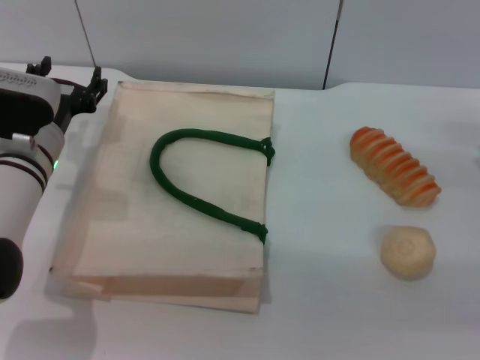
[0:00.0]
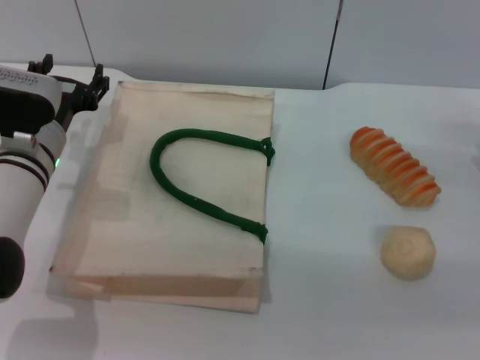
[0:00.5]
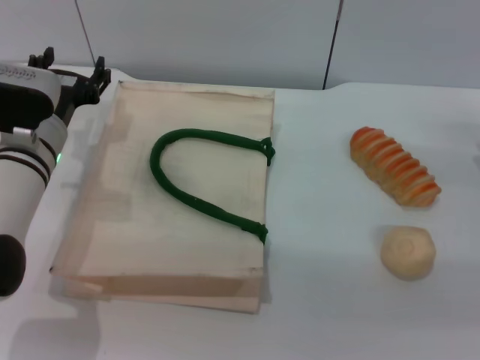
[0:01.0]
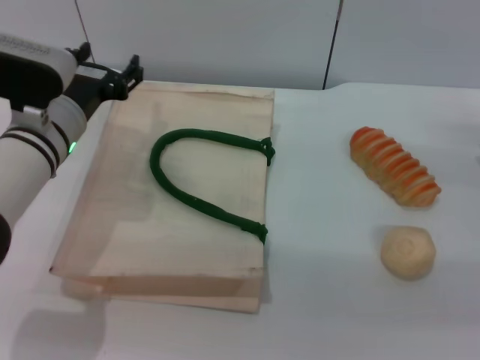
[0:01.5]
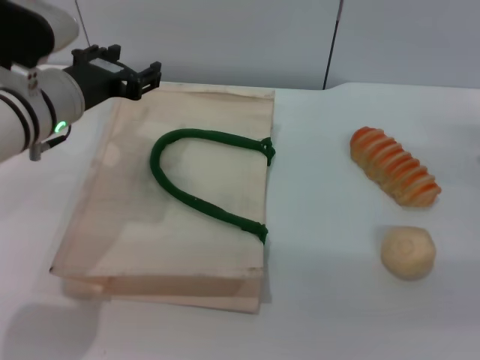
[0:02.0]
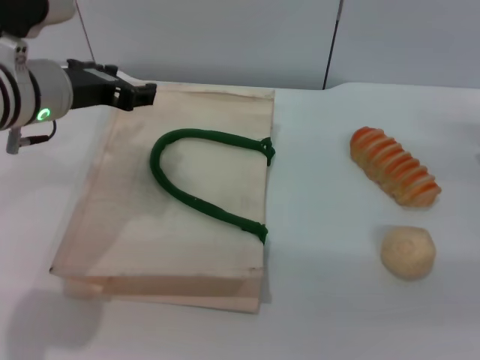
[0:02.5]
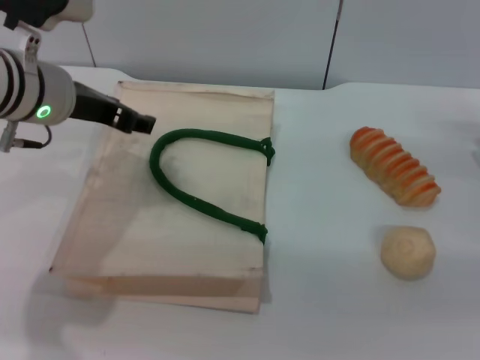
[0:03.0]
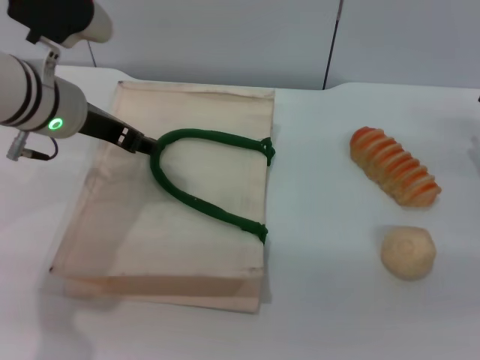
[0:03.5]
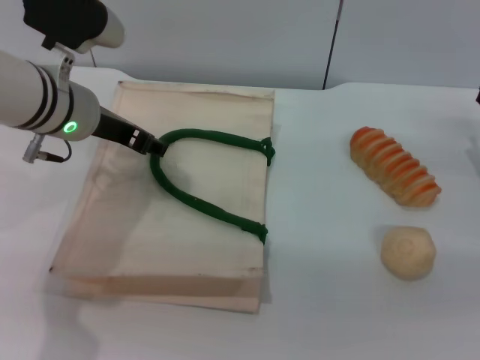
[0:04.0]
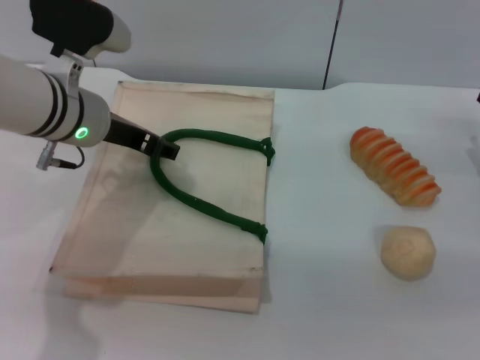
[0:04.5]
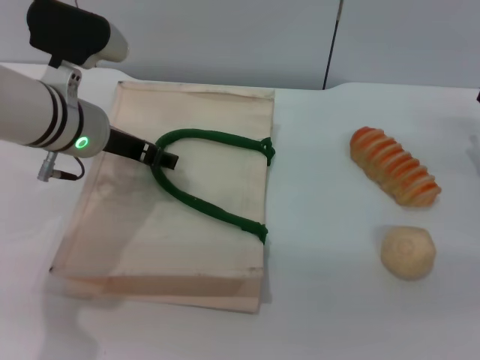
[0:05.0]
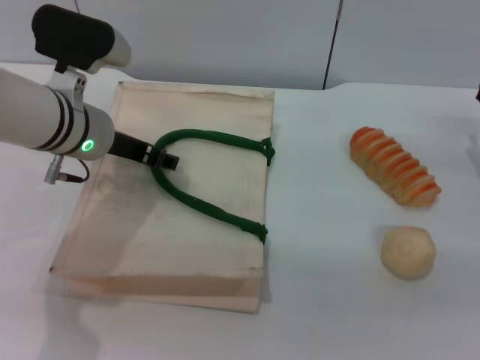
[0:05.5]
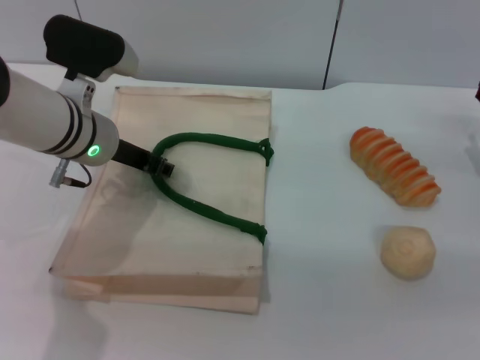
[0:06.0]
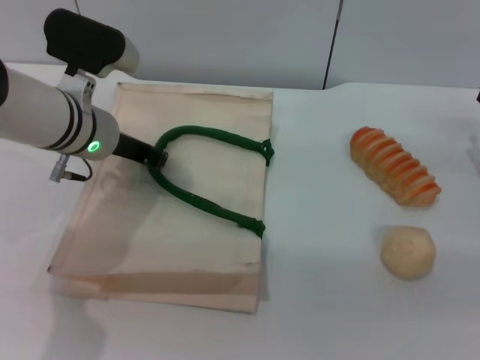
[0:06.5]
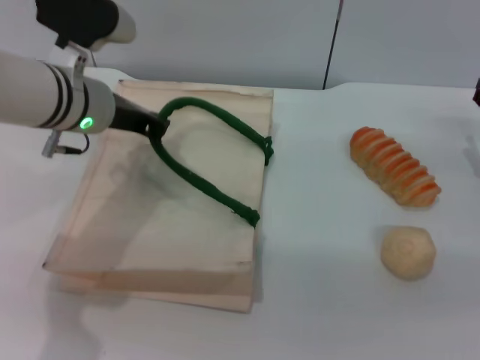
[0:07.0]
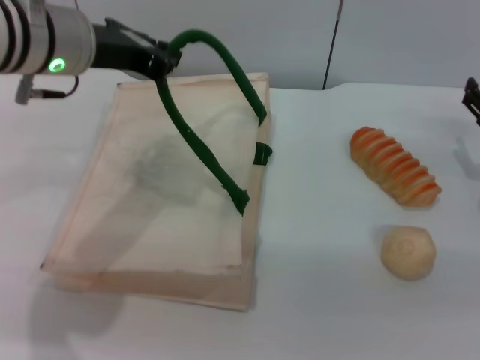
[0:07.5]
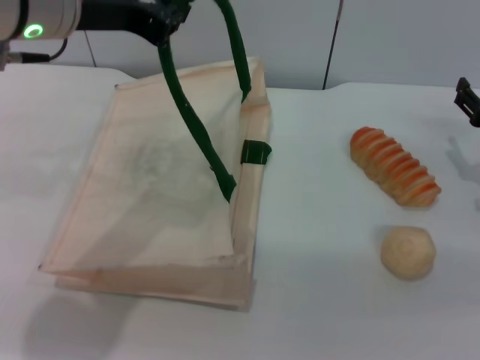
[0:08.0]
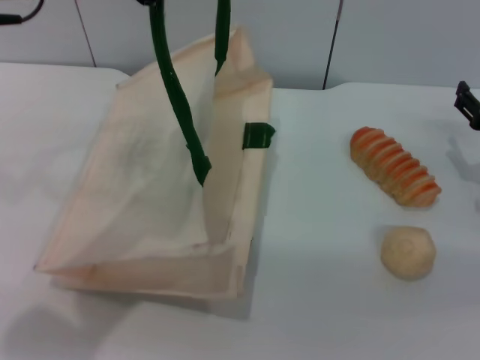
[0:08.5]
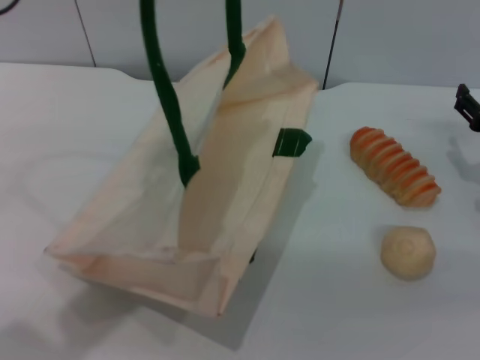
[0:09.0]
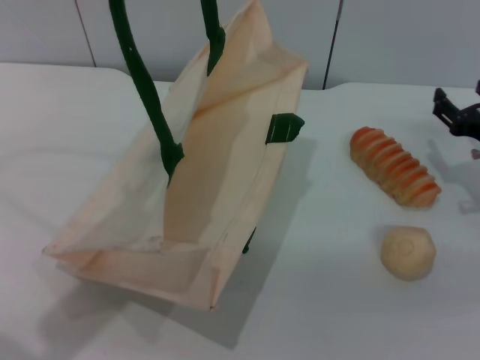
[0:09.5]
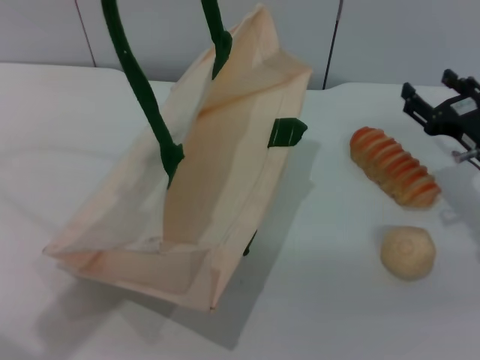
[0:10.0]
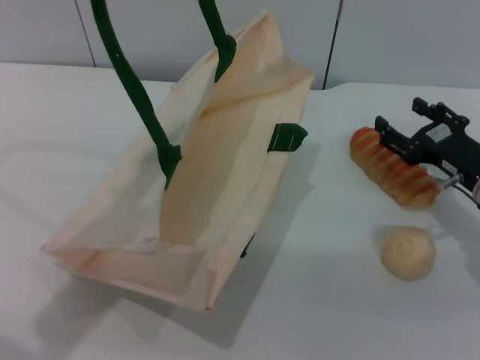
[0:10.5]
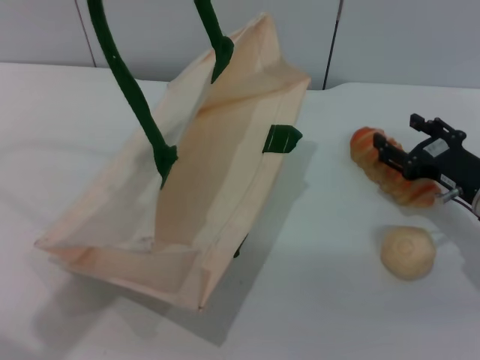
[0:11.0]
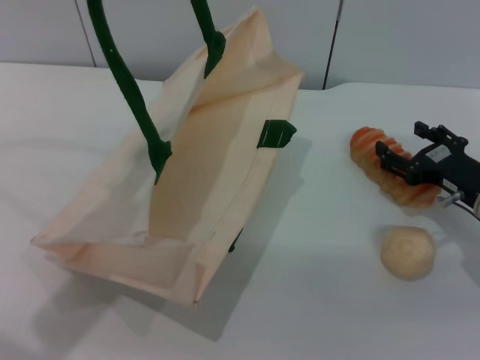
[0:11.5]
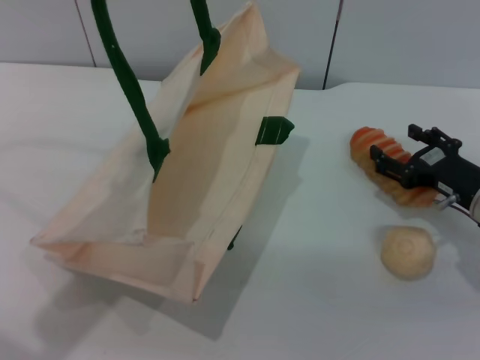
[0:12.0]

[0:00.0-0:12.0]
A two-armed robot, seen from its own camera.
Task of the whole recording: pick up the bread and egg yolk pastry from the table and place it in the white handbag.
Step, 0:00.0 to 0:09.5: Lift the woven bag with the left gripper to open it.
0:00.0 to 0:02.0: The left gripper travels upward by some 10 cm.
0:04.0 to 0:06.0: There are only small adjustments of the grippers.
0:06.0 to 0:08.0: The left gripper travels upward by some 15 cm, and closes up.
0:08.0 to 0:10.0: The left gripper ends up some 10 cm from where it was.
0:10.0 to 0:12.0: The grippers make only small movements.

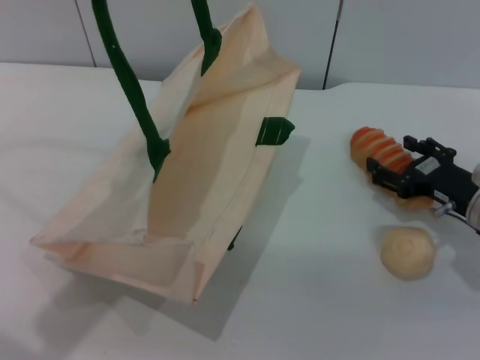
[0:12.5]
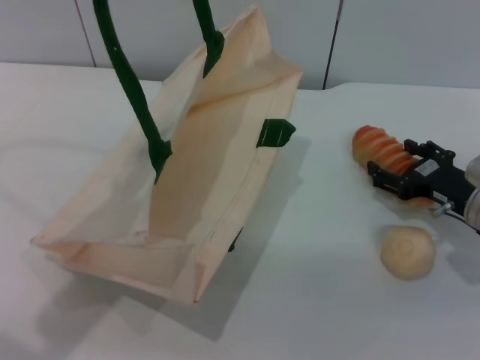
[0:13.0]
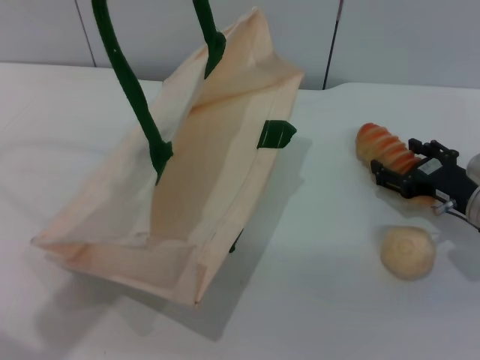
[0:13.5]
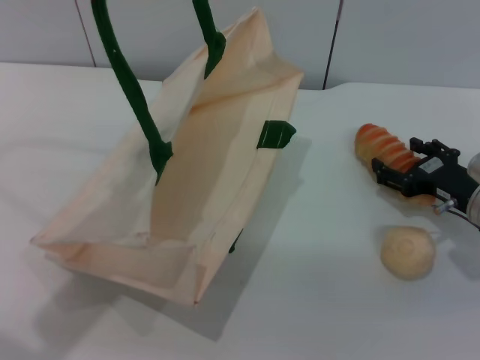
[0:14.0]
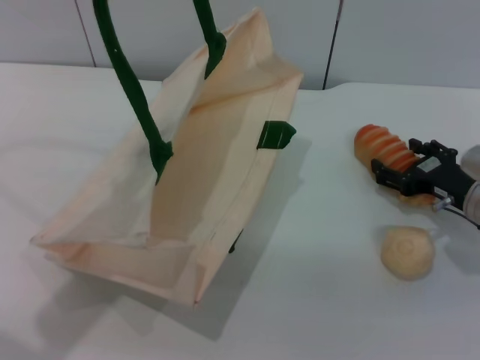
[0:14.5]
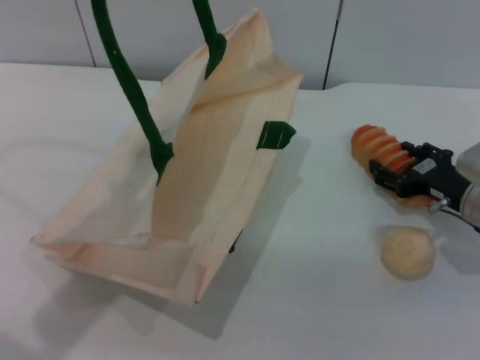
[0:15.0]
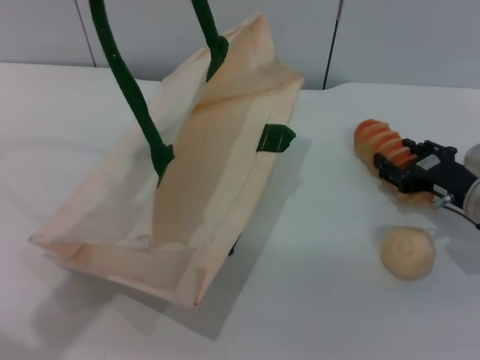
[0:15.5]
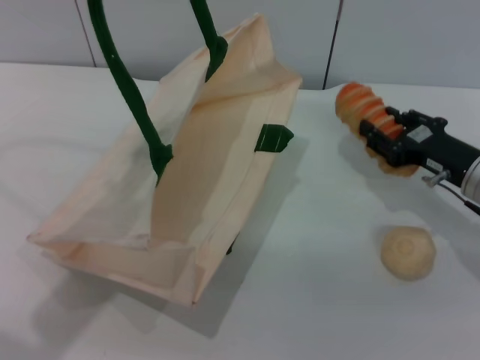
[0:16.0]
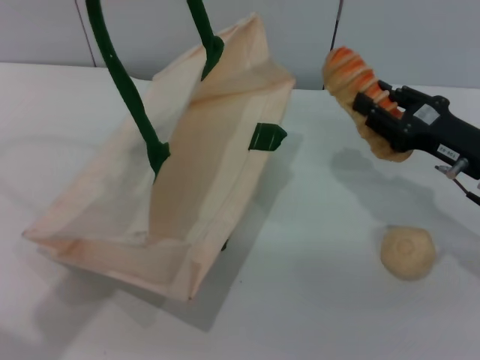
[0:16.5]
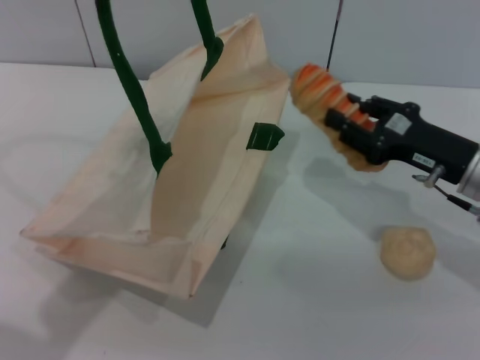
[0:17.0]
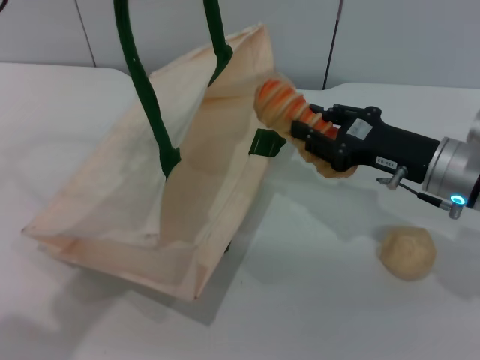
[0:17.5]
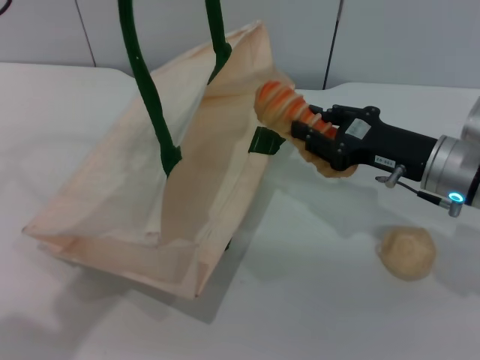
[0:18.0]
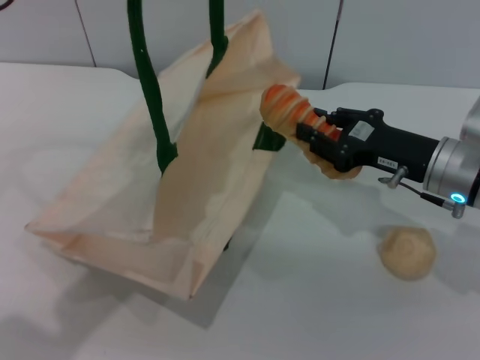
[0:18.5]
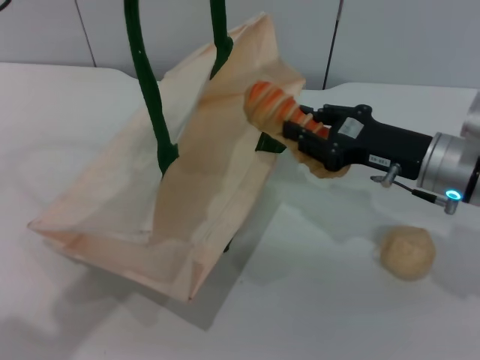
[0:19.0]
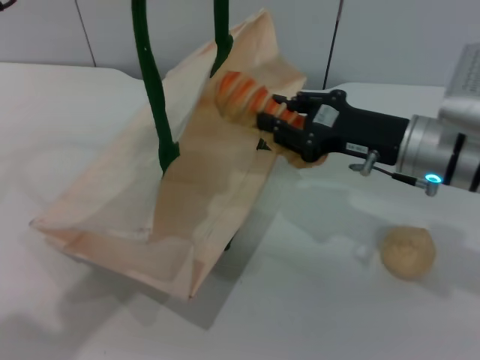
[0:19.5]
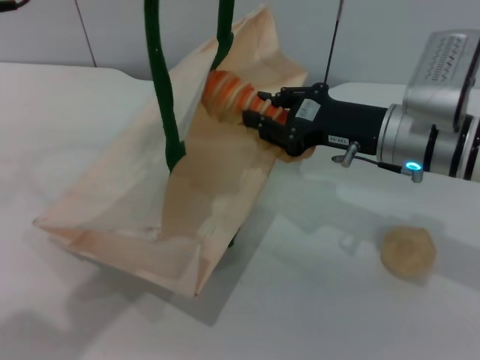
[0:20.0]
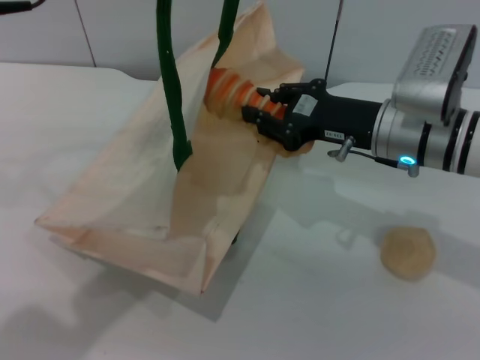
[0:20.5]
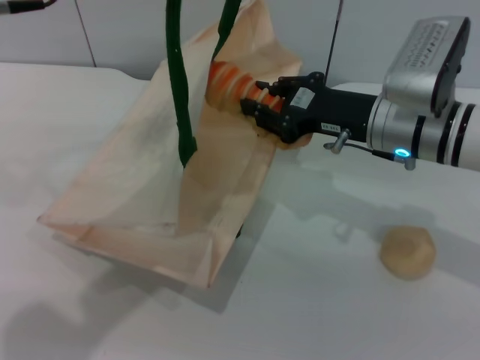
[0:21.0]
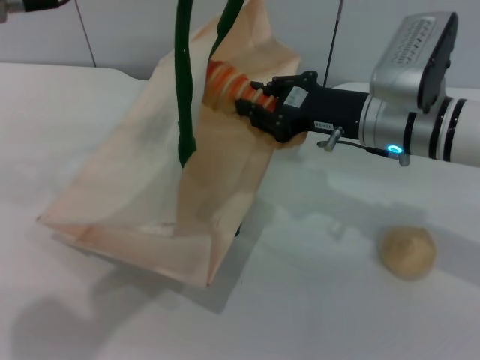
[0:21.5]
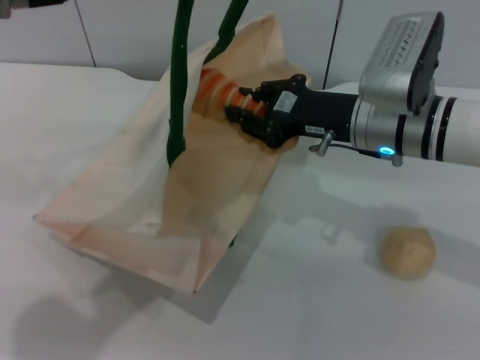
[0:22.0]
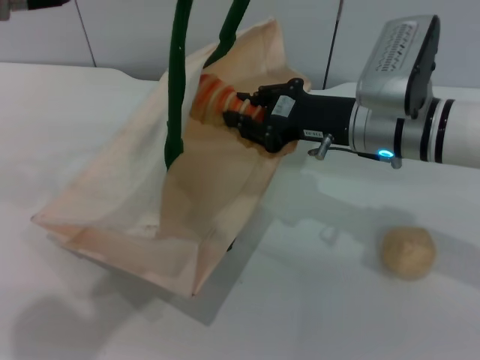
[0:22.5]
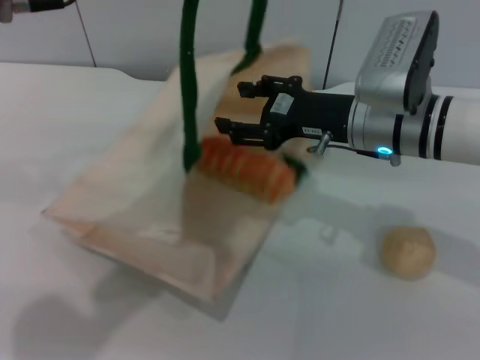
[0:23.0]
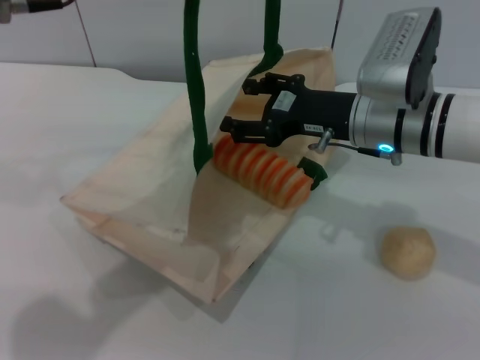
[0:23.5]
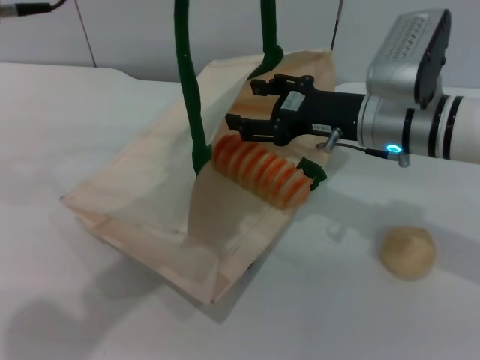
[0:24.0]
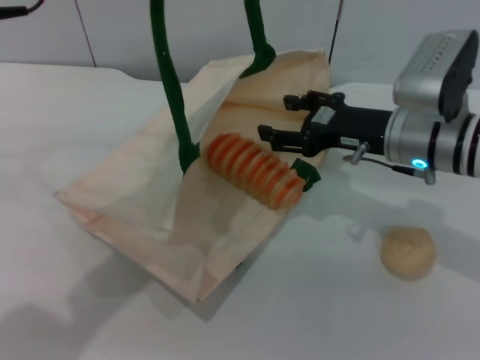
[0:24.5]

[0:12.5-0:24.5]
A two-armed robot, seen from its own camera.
Task of the whole recording: pick up the bread and egg yolk pastry from the table and place it in the white handbag.
Step, 0:12.5 to 0:16.0: Pick up the bread with the right gripper.
Step, 0:16.5 to 0:23.0: Place the bread into the woven bag with the right gripper.
0:12.5 to 0:14.5: There are only small adjustments of the grippers.
0:14.5 to 0:16.5: The right gripper moves upward, approximately 5 cm, and closes.
0:16.5 to 0:18.5: The right gripper moves some 5 cm.
0:18.5 to 0:20.5: The right gripper shifts some 5 cm to the left.
0:20.5 to 0:22.5: The grippers make only small movements.
0:22.5 to 0:24.5: The right gripper opens up.

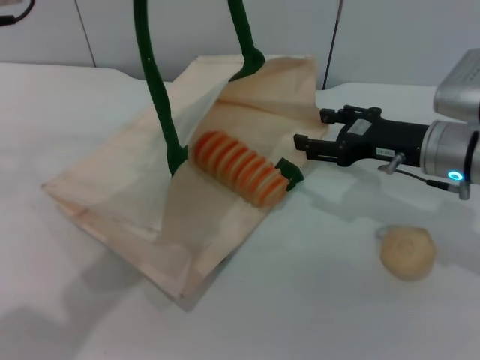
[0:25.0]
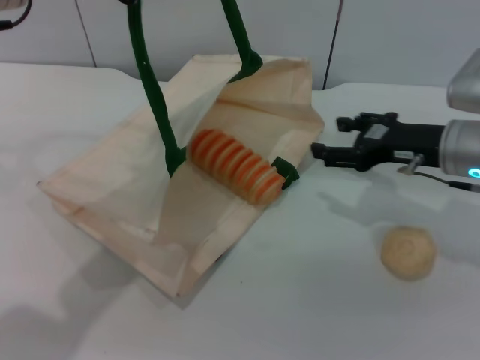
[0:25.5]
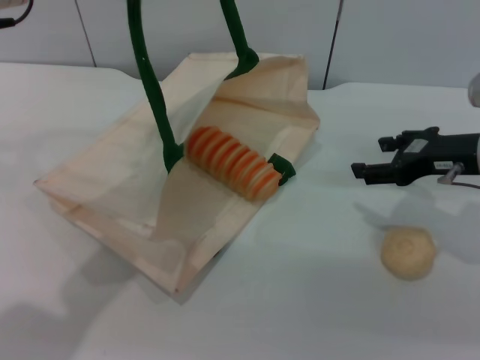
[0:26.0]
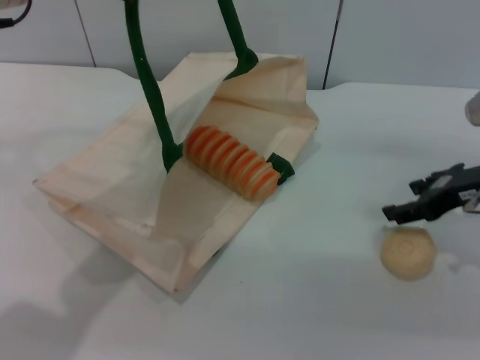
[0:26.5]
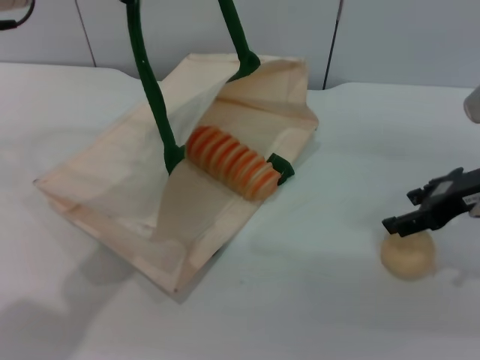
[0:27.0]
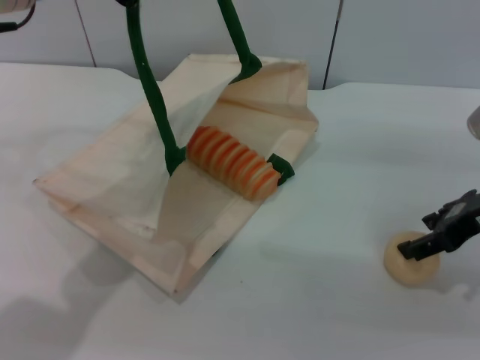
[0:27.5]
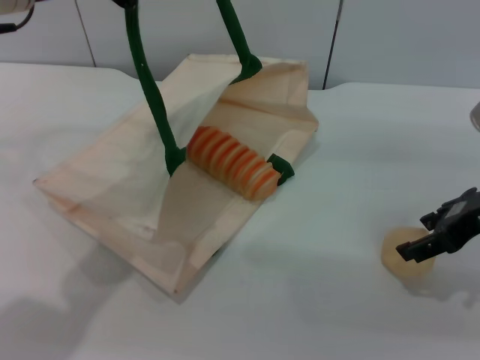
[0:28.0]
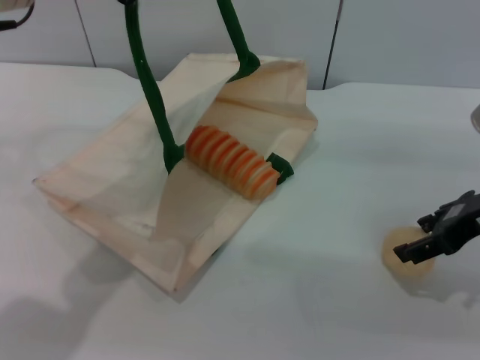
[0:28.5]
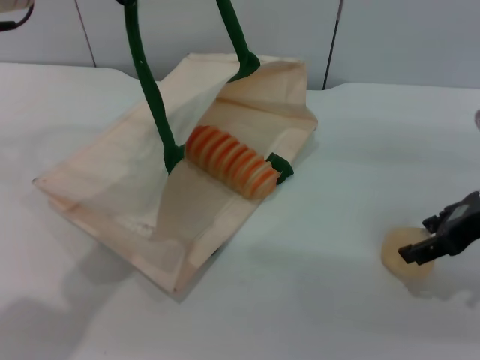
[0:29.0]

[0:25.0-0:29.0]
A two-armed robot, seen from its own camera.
Task of the whole recording: pick up the bread and egg yolk pastry from the table and place it in the white handbag.
0:25.0 to 0:27.0: The right gripper goes roughly 5 cm upward.
0:27.0 to 0:29.0: The grippers make only small movements.
